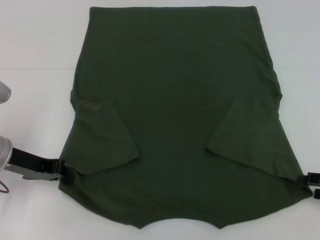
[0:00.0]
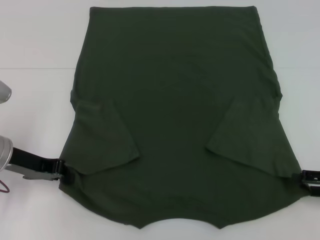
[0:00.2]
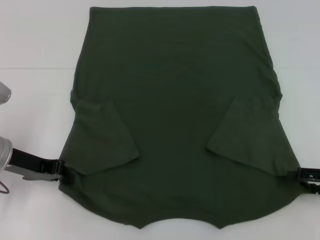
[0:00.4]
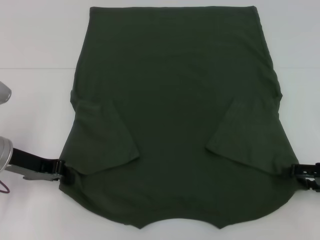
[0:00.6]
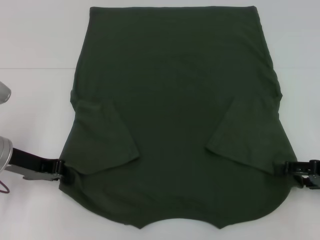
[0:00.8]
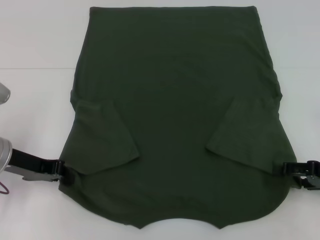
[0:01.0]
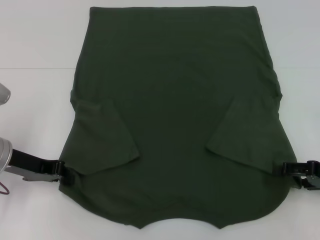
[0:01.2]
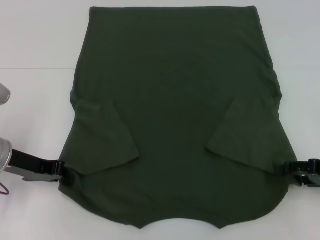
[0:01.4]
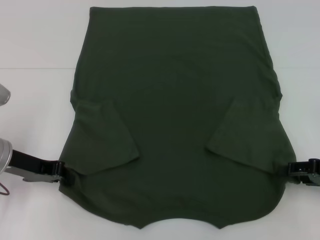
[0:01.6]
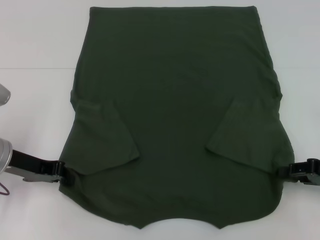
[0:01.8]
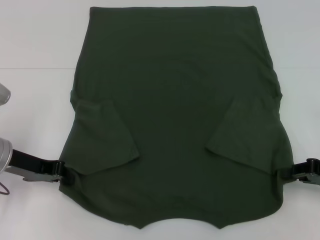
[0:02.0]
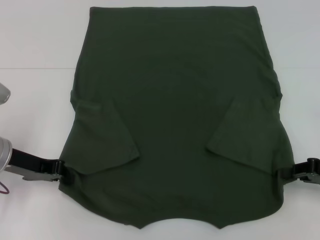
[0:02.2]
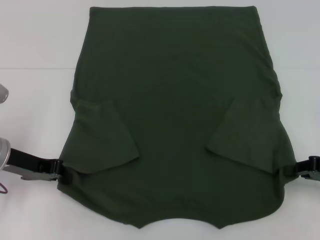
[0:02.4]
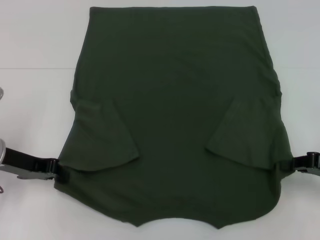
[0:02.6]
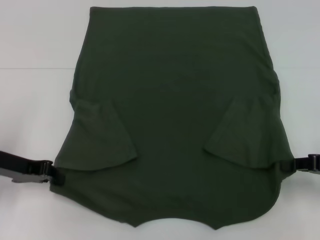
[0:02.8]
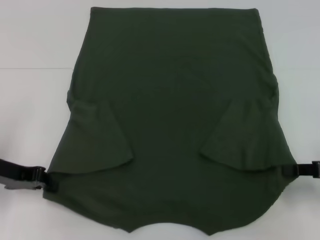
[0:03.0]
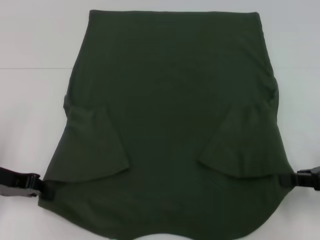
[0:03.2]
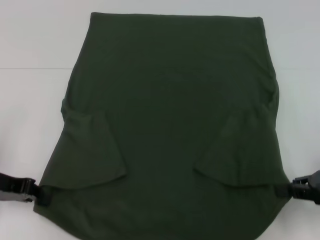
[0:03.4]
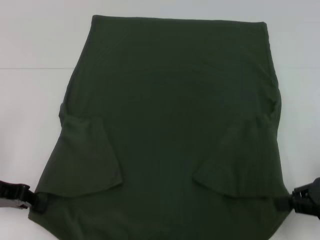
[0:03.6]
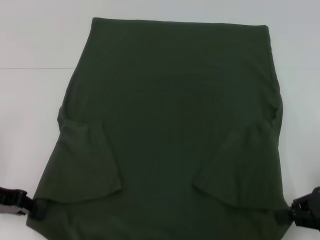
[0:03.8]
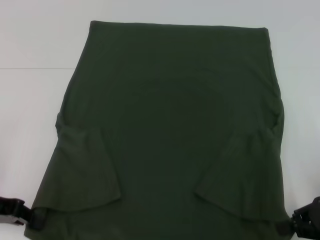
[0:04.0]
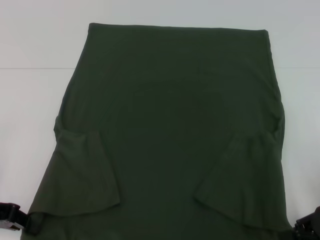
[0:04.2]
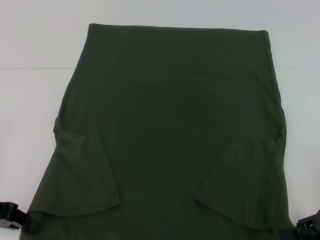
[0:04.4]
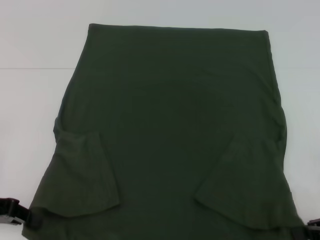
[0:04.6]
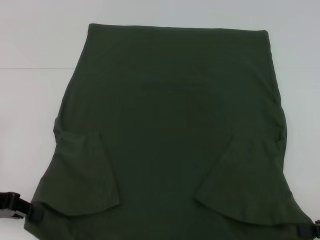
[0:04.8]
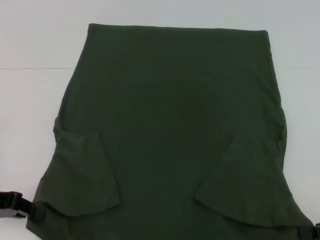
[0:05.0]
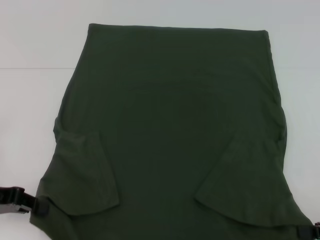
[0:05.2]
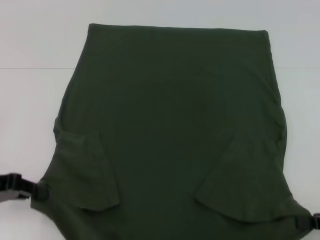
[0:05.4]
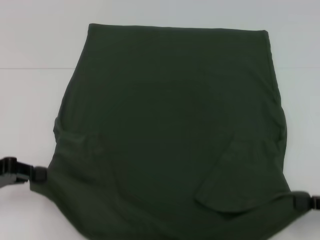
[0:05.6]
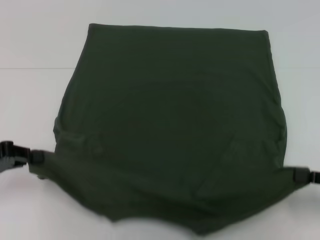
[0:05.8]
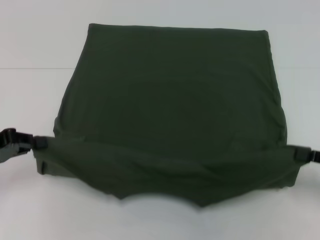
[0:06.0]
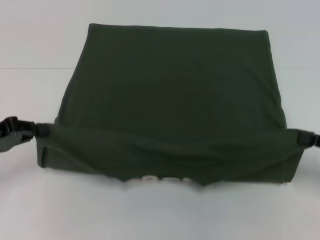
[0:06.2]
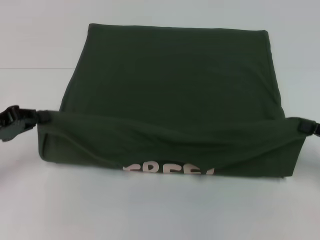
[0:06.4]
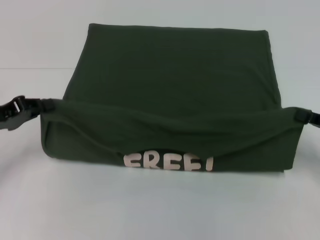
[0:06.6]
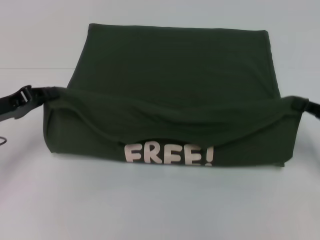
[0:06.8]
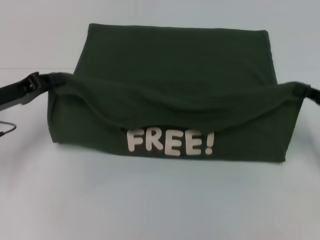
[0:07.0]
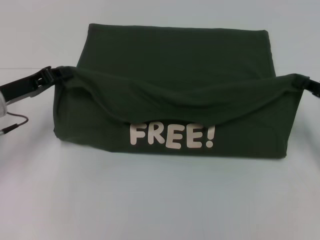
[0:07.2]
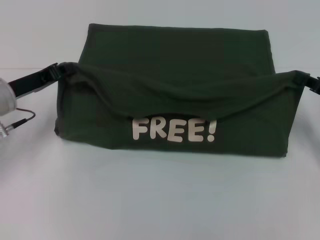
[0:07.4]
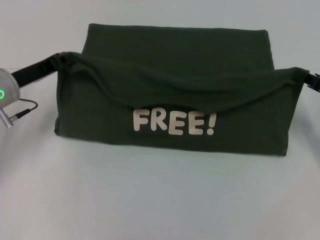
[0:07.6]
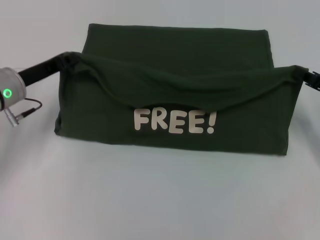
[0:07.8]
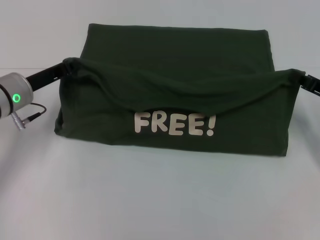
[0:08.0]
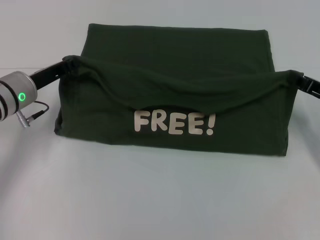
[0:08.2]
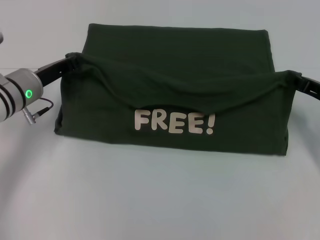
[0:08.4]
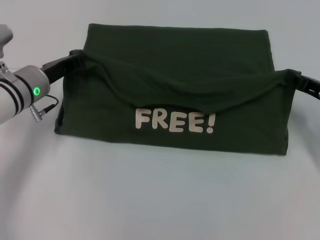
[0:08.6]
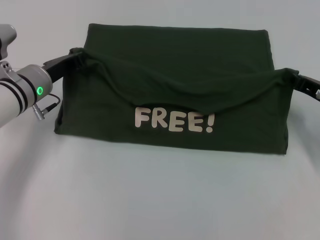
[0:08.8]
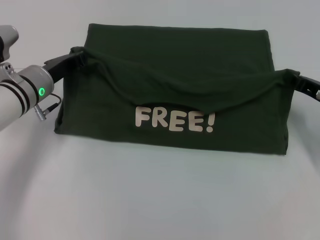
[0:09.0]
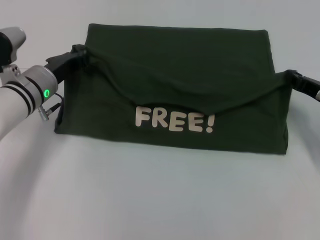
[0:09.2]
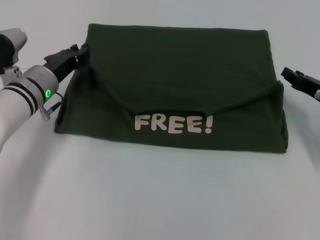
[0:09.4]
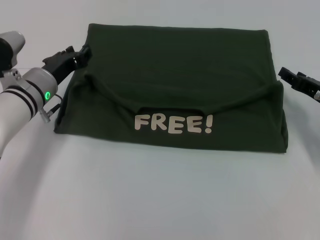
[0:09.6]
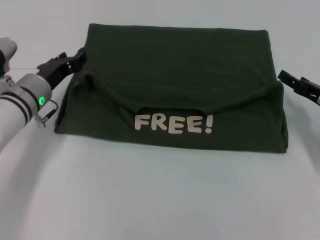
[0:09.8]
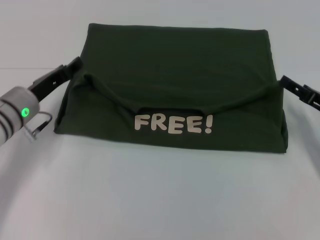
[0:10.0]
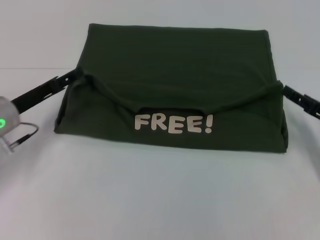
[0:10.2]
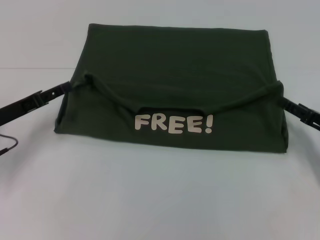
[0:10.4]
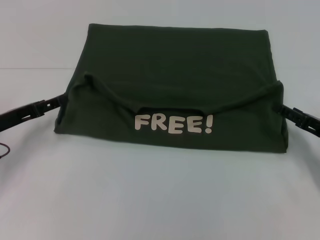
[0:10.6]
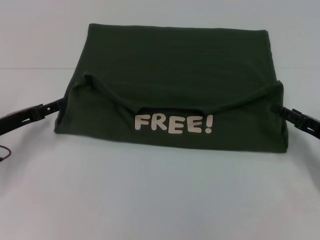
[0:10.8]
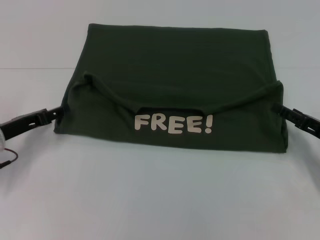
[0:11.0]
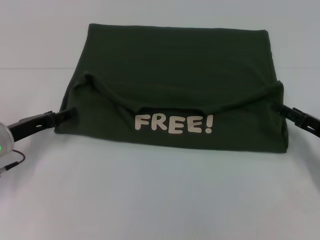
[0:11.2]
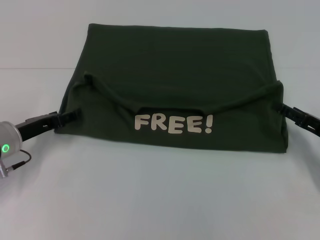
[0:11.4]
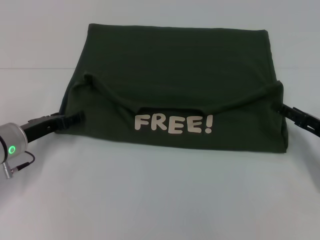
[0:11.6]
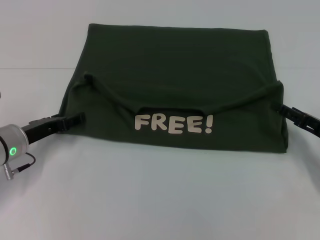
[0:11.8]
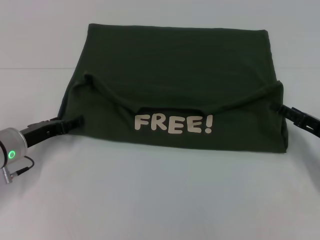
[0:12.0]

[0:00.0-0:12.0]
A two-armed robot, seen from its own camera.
Step, 0:02.0 to 0:09.8: Fold the clothes with your left hand.
Step, 0:02.0 to 0:09.8: Fold the clothes with your right hand.
0:00.0 to 0:01.6: There are only small adjustments of the grippers.
0:01.6 to 0:03.0: The right gripper closes.
0:03.0 to 0:04.4: The left gripper changes place by about 5 cm.
0:06.0 to 0:07.6: The left gripper travels forward and to the right by approximately 10 cm; the right gripper is displaced forward by about 10 cm.
0:07.6 to 0:09.0: The left gripper goes about 5 cm to the right.
0:09.0 to 0:10.4: The left gripper moves to the left and backward, some 10 cm, and opens its fingers. Meanwhile the right gripper goes approximately 5 cm backward, and opens.
0:10.4 to 0:12.0: The left gripper ends up roughly 5 cm from where it was.

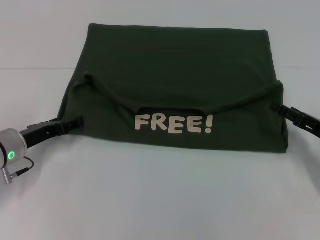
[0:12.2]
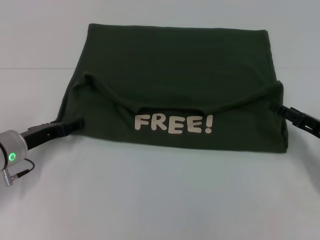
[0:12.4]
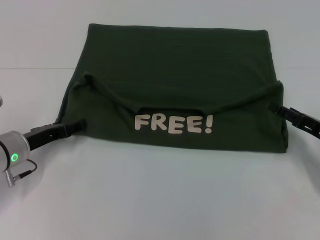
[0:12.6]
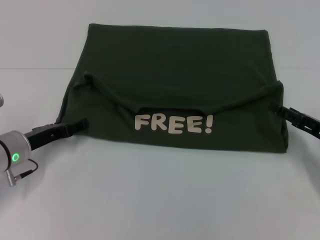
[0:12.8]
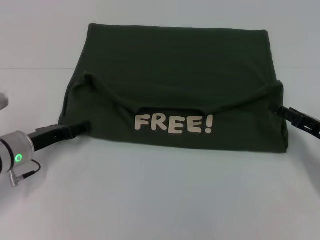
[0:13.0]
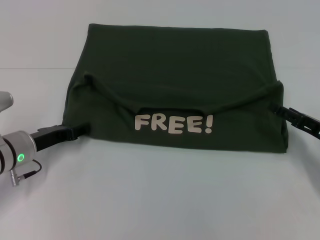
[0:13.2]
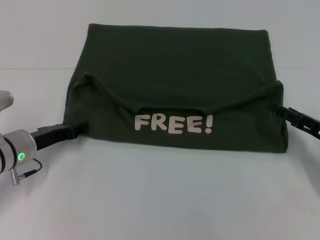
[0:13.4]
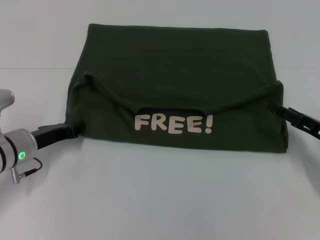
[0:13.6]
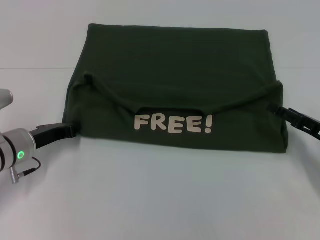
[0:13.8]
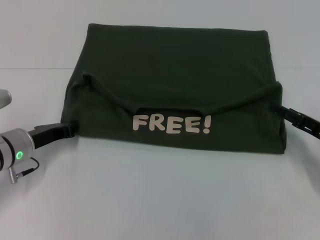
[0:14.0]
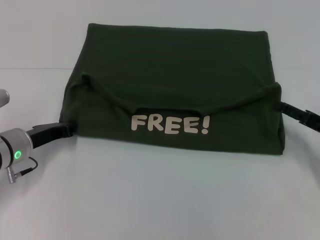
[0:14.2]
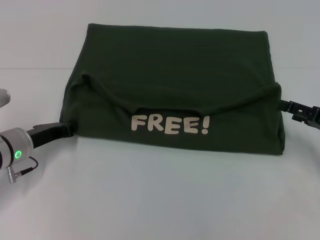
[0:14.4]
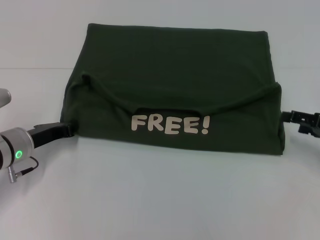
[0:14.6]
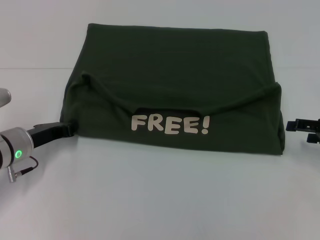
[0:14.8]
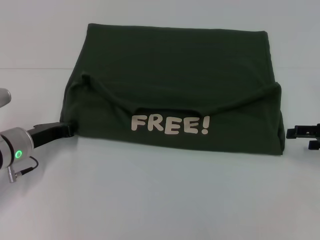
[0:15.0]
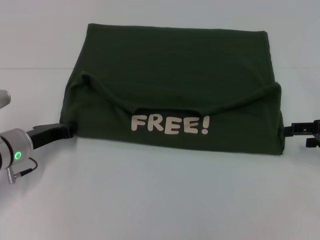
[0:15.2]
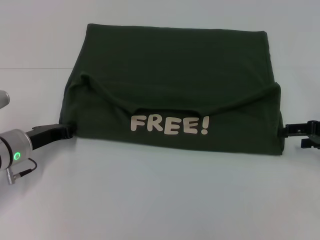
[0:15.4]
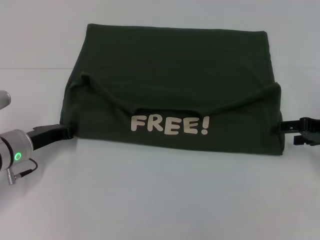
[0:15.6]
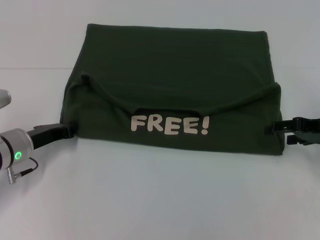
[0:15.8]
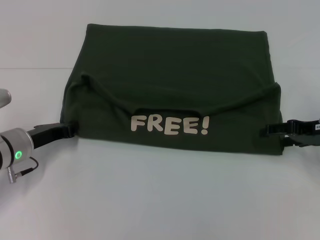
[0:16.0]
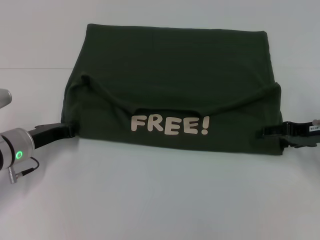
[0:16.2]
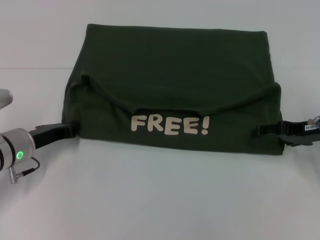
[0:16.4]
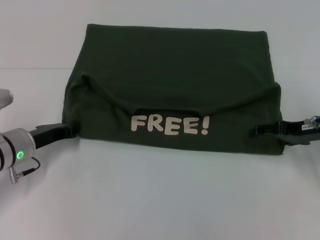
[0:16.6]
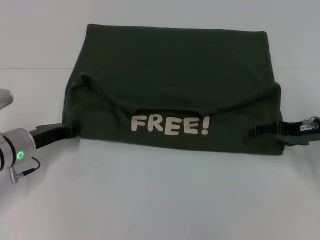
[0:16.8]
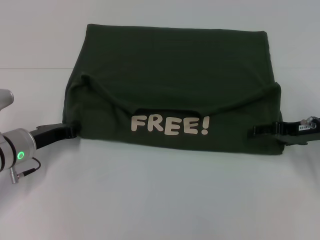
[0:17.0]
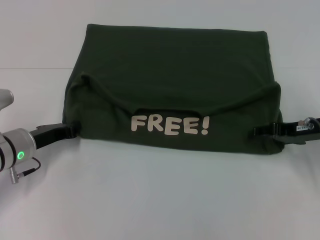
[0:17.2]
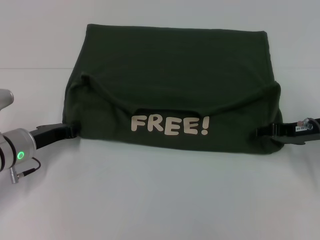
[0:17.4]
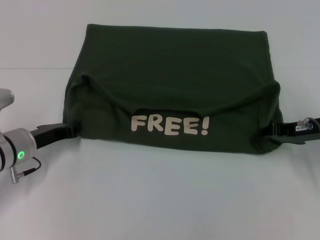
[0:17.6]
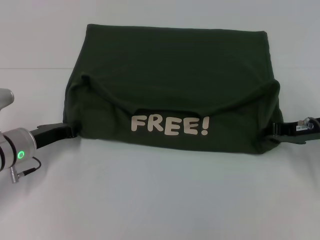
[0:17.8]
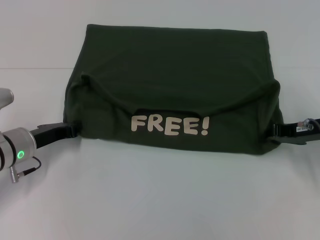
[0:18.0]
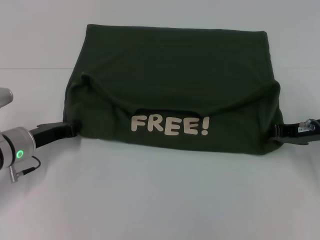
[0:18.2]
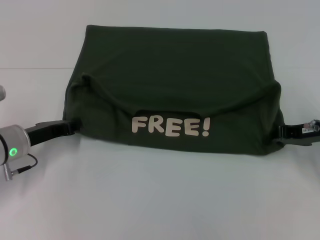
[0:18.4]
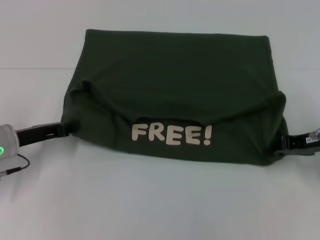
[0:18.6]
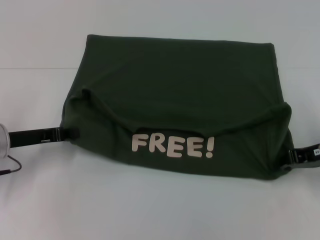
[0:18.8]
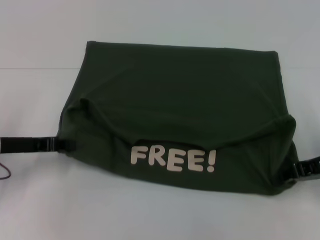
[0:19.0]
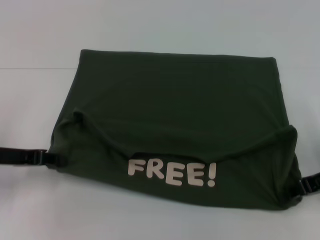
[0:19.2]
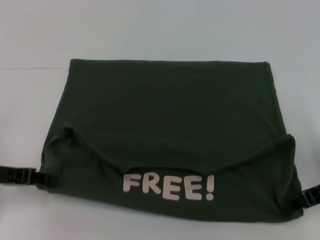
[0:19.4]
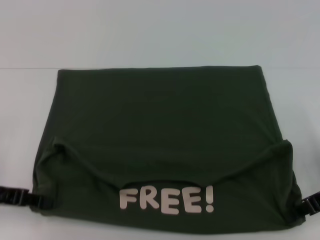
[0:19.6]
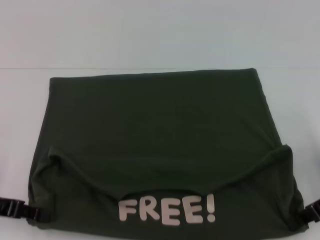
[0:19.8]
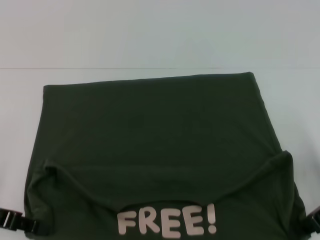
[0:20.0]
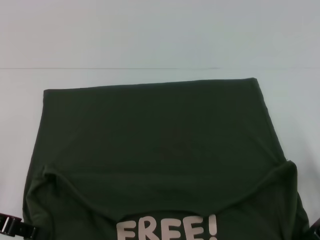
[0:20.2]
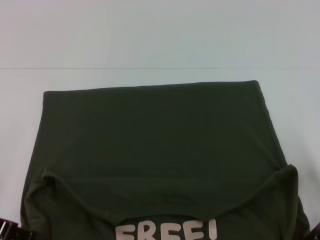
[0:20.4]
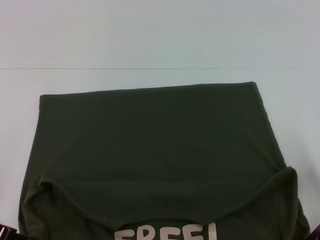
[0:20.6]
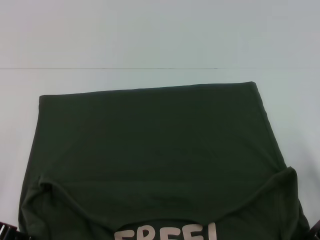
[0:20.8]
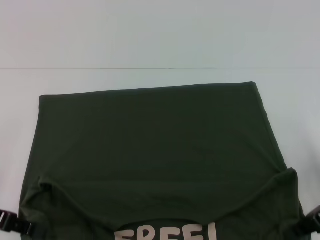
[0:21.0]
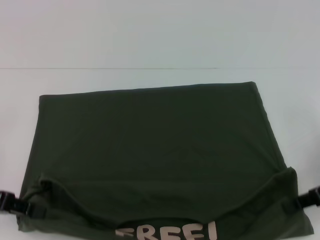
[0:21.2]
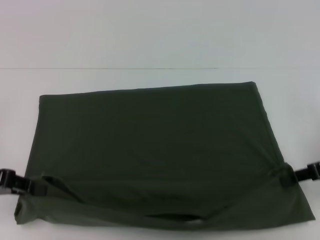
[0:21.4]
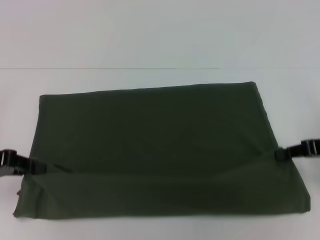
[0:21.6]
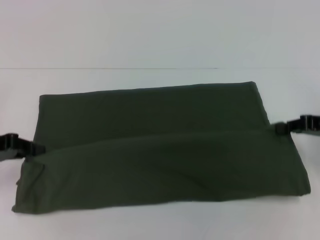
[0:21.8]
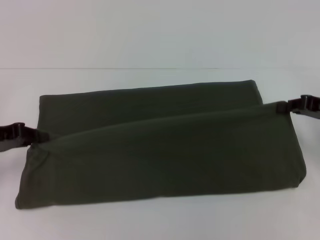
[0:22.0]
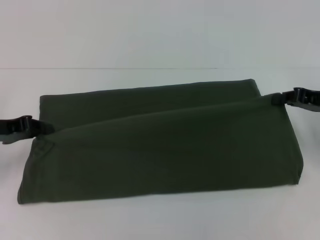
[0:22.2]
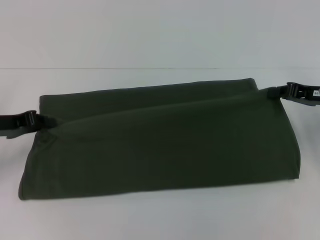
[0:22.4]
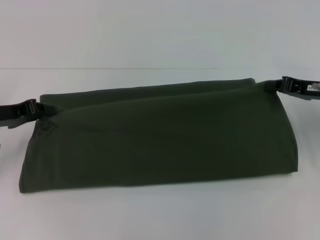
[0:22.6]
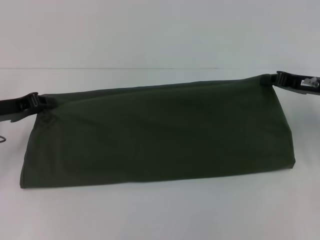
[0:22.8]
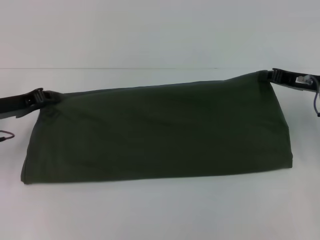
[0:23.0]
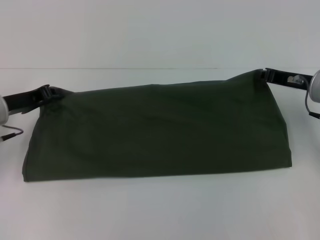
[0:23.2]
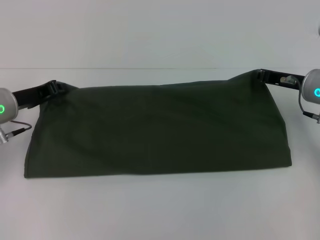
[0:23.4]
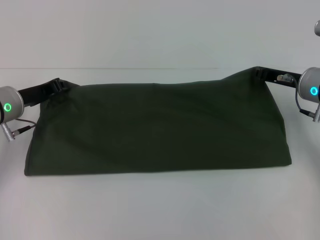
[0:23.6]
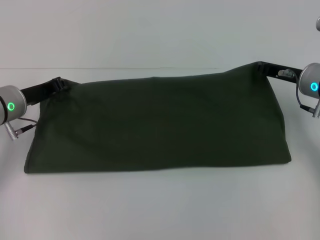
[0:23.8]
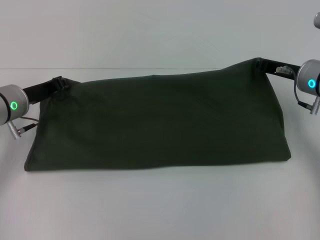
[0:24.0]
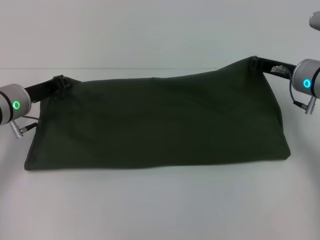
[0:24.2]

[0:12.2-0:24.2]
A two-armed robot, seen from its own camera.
Step, 0:12.2 to 0:20.2: Pull the clothes with your left hand.
Step, 0:12.2 to 0:20.2: Pull the clothes with your right hand.
0:12.2 to 0:13.8: The left gripper closes up.
0:13.8 to 0:15.2: The right gripper goes some 5 cm upward.
0:15.2 to 0:16.6: The right gripper is displaced to the left by roughly 5 cm.
0:16.6 to 0:18.2: The right gripper closes.
0:18.2 to 0:19.8: The right gripper travels backward by some 5 cm, while the left gripper travels backward, to the left and upward by some 15 cm.
0:19.8 to 0:21.2: There are only small adjustments of the grippers.
0:21.2 to 0:22.6: Both grippers move forward, roughly 10 cm.
0:22.6 to 0:24.2: The left gripper moves to the right, roughly 5 cm. The right gripper is displaced to the left by some 5 cm.
